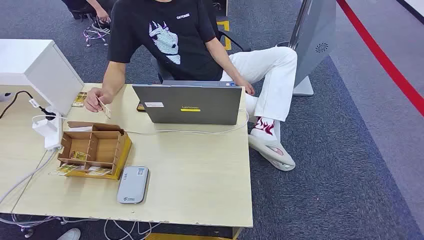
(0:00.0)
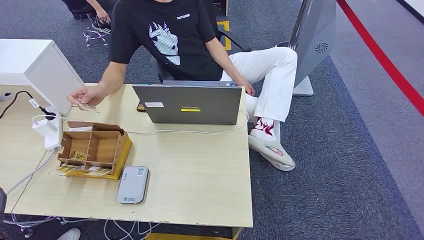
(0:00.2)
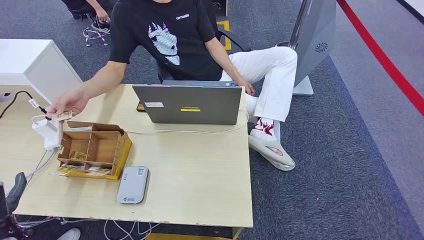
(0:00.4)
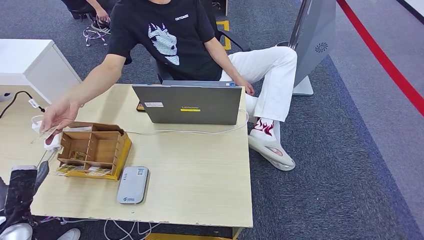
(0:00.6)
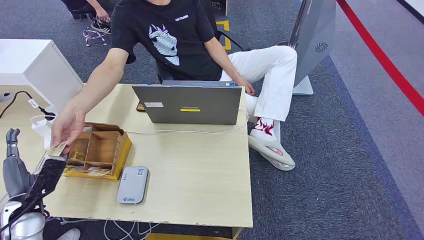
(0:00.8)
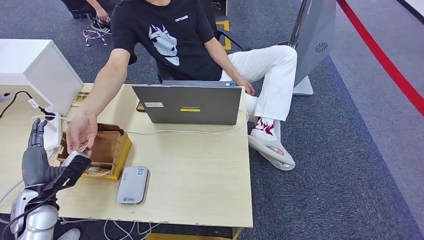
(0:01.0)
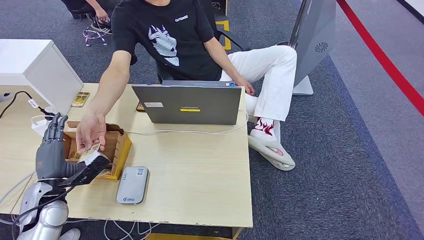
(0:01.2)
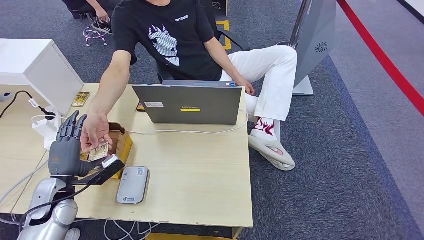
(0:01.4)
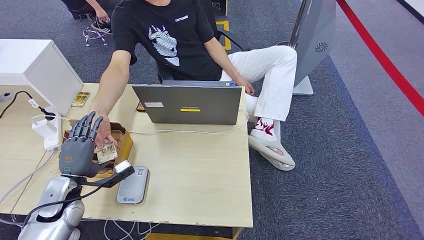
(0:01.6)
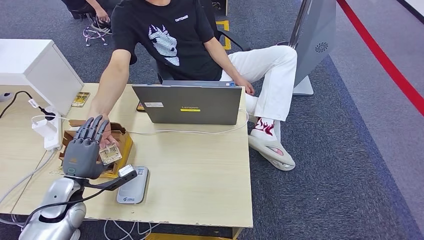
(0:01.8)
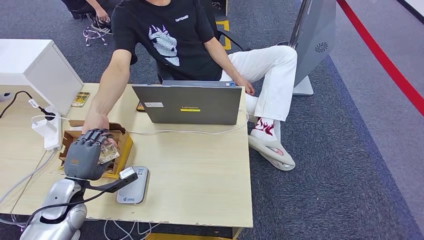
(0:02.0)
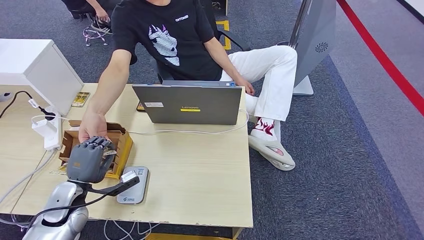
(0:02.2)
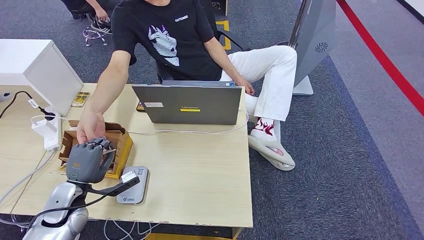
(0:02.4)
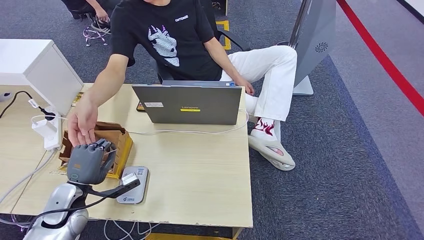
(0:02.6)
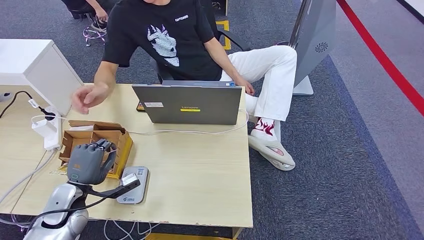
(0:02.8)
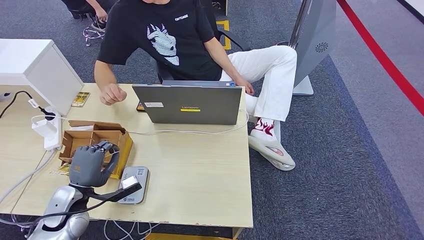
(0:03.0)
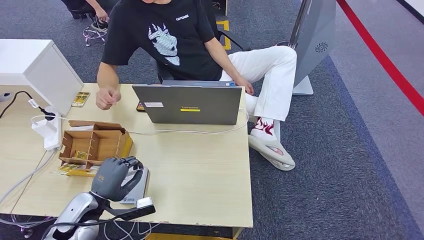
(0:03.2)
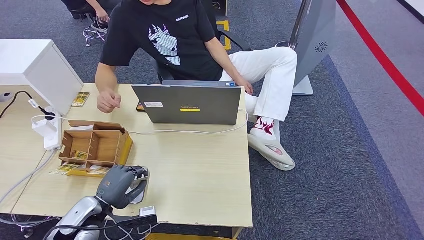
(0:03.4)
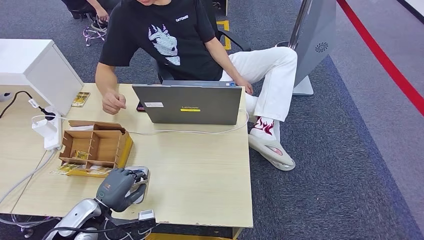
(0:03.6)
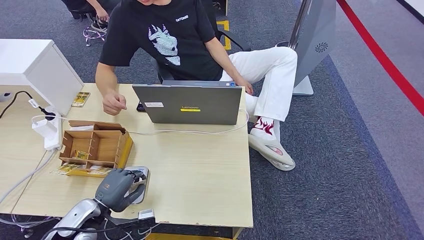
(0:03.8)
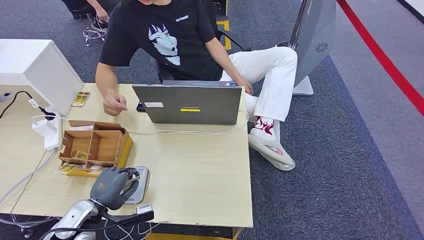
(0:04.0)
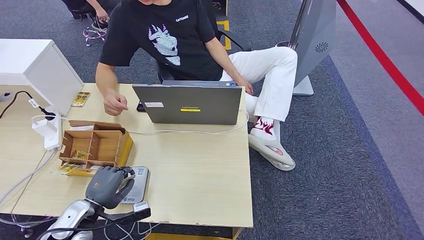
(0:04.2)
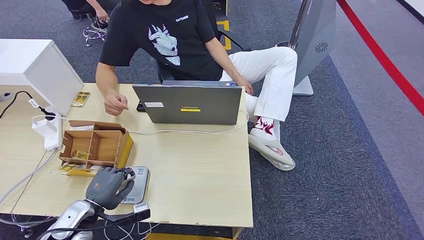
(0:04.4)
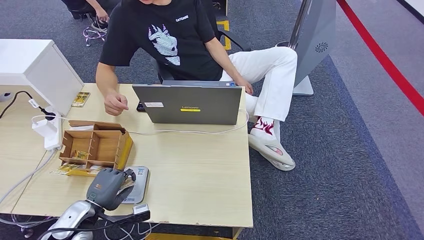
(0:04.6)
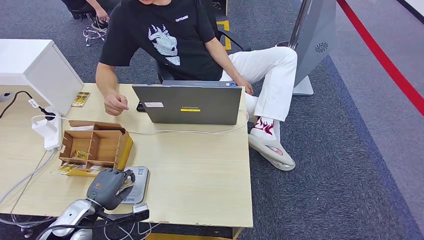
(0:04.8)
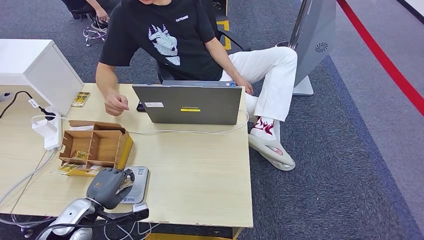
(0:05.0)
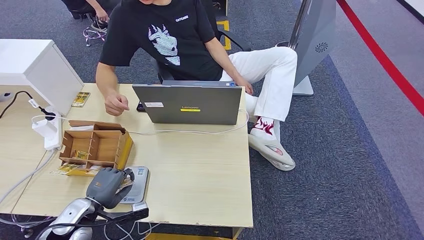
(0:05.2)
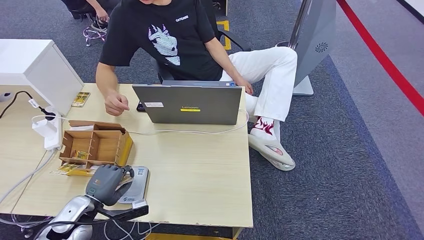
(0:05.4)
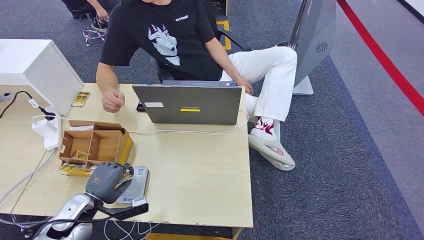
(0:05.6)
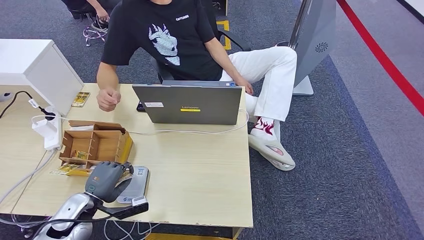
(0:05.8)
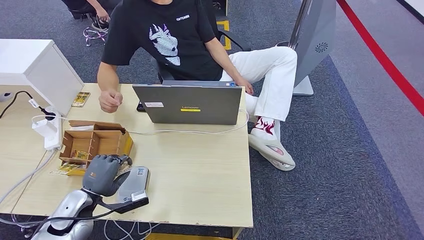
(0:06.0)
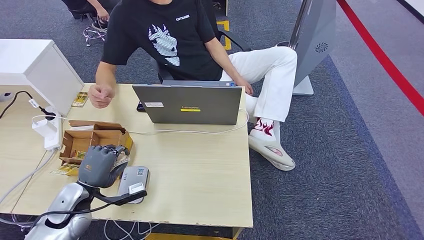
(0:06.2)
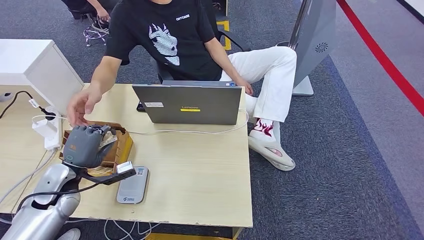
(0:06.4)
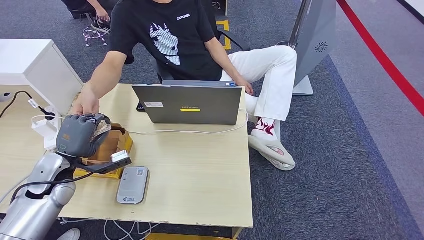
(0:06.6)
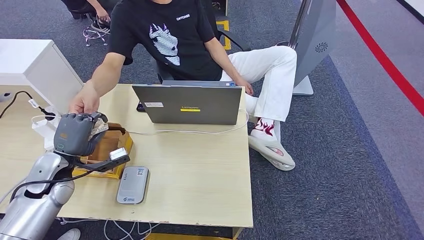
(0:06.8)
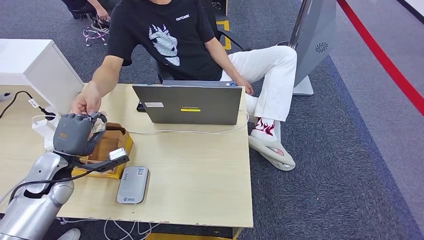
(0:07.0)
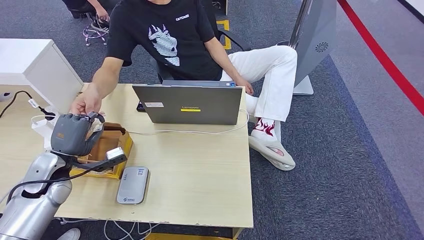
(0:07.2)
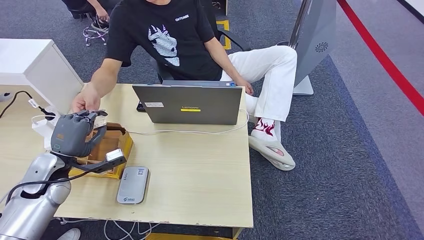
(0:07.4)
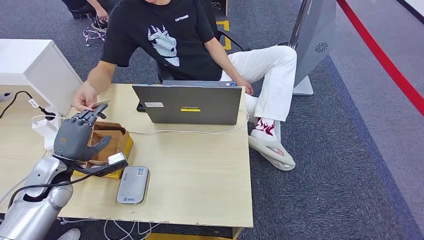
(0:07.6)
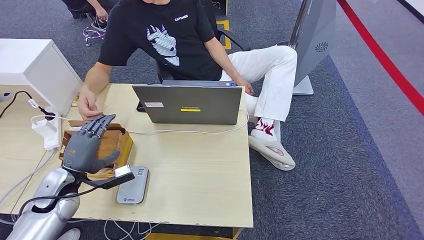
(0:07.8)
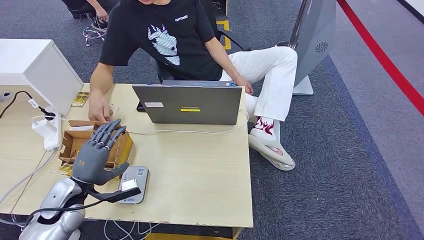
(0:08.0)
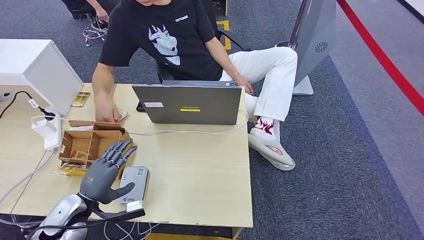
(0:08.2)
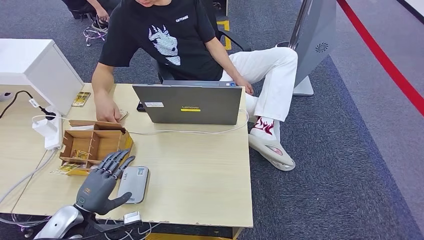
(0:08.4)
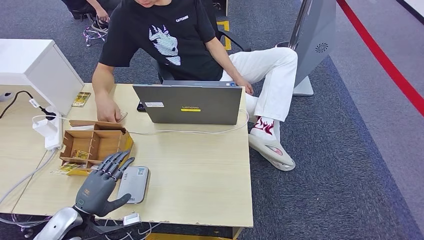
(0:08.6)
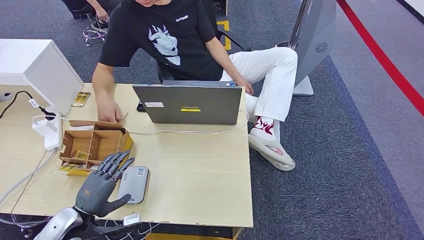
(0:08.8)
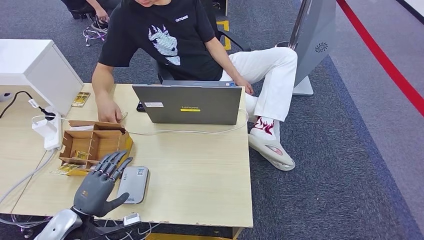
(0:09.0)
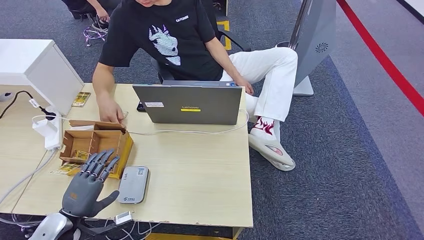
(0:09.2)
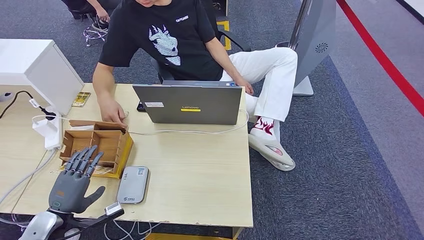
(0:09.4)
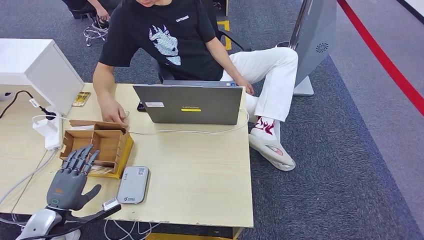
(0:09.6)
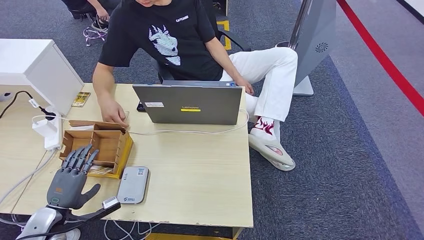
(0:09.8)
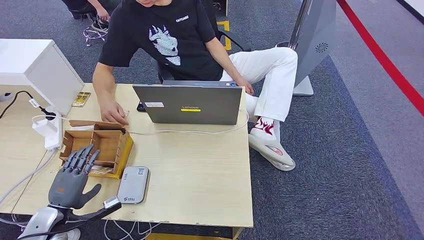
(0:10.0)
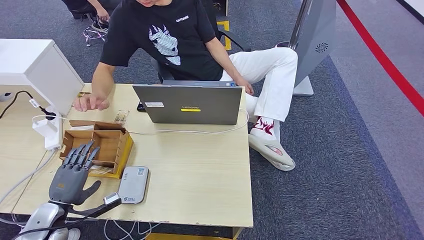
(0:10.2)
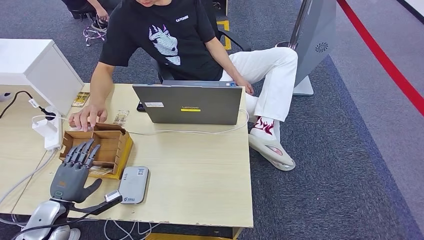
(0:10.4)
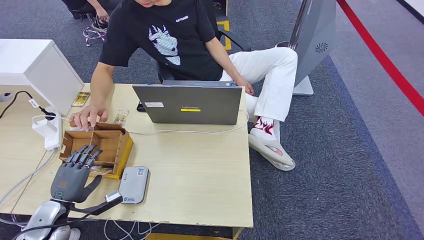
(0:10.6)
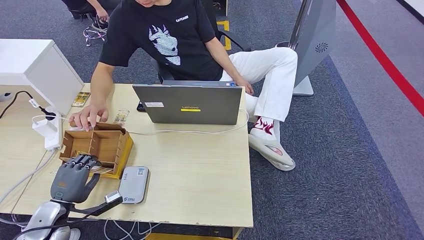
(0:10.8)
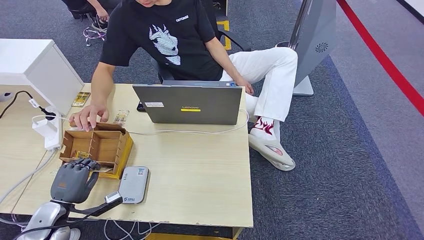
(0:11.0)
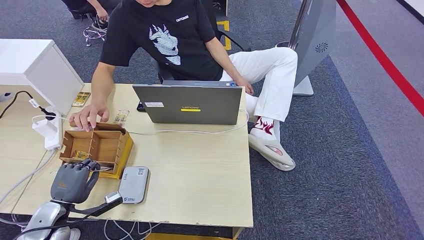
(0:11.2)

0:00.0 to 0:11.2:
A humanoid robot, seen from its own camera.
Step, 0:00.0 to 0:03.2: Take the ID card from the person's hand.
Step, 0:04.2 to 0:05.8: Place the ID card on the card reader.
Step, 0:06.6 to 0:08.0: Hand the ID card to the person.
0:01.6 to 0:03.2: The left hand ends up about 5 cm from where it was.
0:03.2 to 0:04.8: There are only small adjustments of the hands.
0:04.8 to 0:06.4: The left hand shifts approximately 10 cm upward and forward.
0:06.4 to 0:08.0: The hands stay close to where they were, moving slightly.
0:08.0 to 0:09.6: The left hand goes approximately 10 cm backward and to the left.
0:09.6 to 0:11.2: The hands make only small movements.

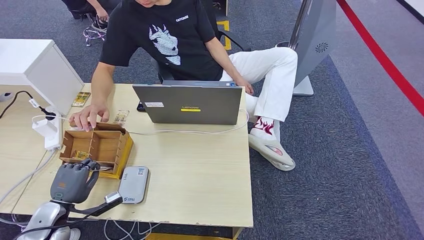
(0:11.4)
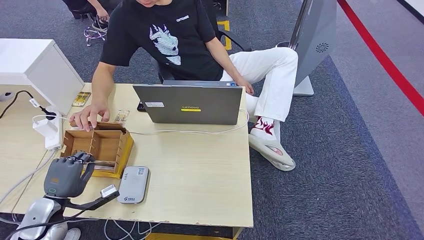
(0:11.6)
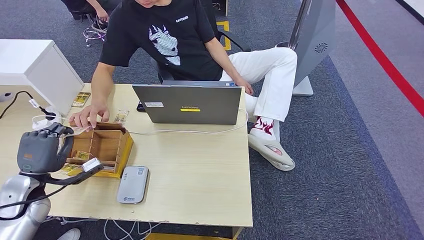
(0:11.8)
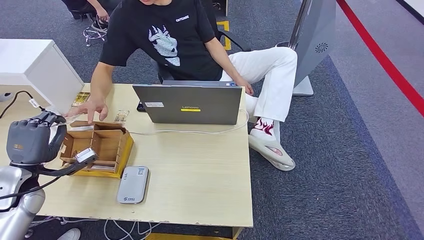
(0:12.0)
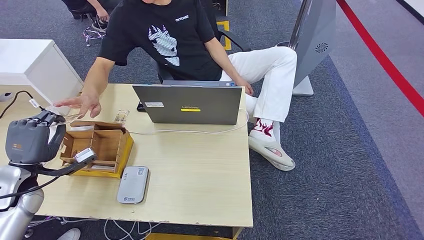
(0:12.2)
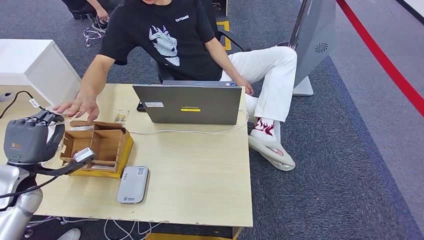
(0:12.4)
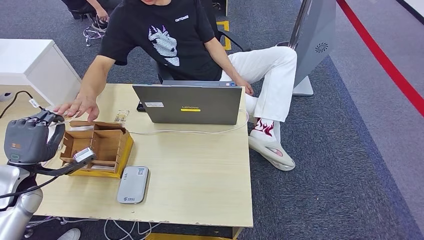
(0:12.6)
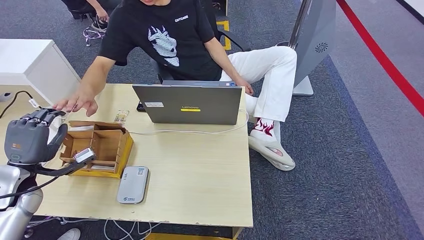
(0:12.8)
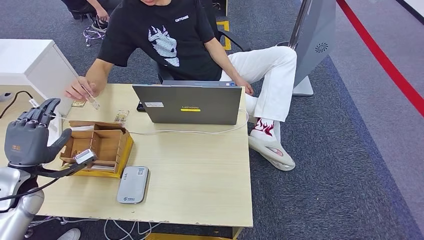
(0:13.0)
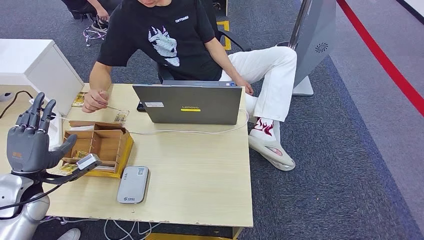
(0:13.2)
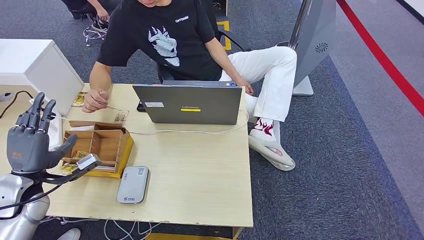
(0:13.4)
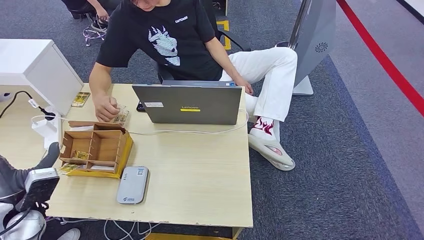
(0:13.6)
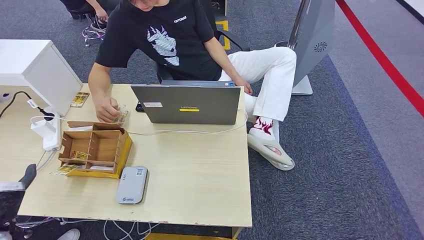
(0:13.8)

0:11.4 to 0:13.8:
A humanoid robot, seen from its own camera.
Step, 0:12.2 to 0:13.8: Hand the room key to the person.
0:11.4 to 0:12.6: The left hand is displaced upward and forward by about 15 cm.
0:12.6 to 0:13.8: The left hand shifts about 15 cm backward and downward.
